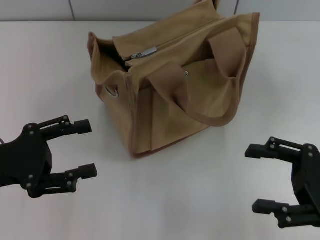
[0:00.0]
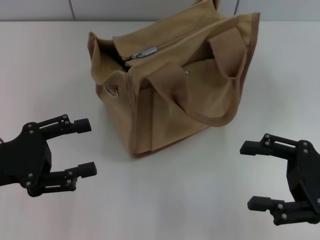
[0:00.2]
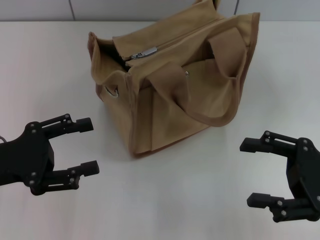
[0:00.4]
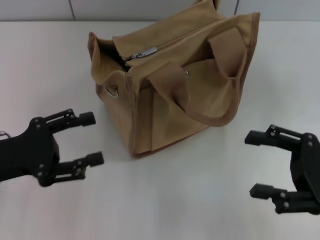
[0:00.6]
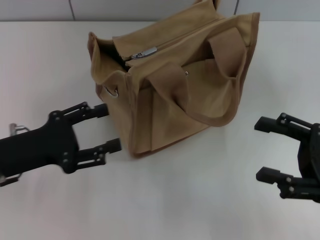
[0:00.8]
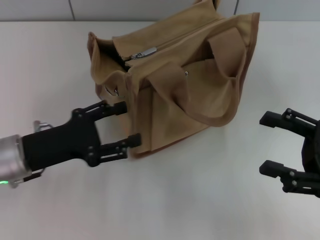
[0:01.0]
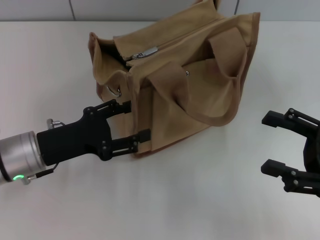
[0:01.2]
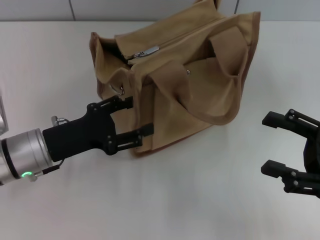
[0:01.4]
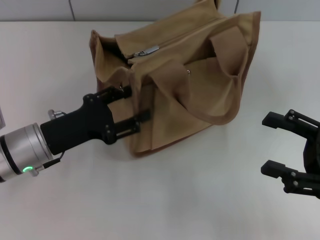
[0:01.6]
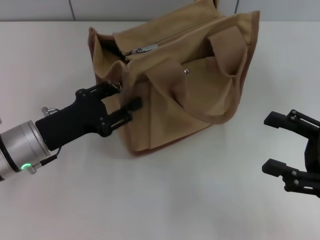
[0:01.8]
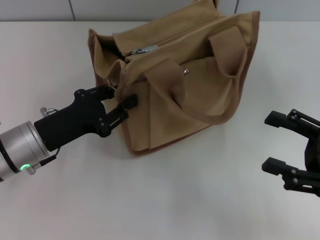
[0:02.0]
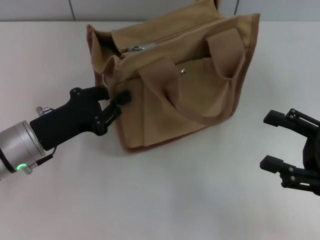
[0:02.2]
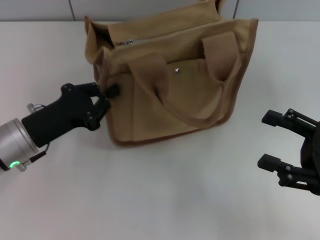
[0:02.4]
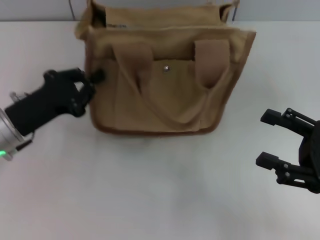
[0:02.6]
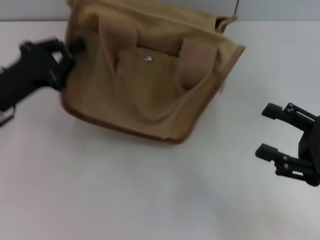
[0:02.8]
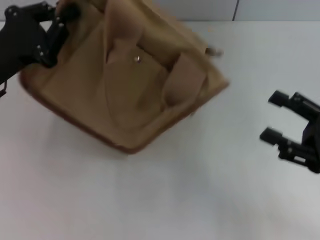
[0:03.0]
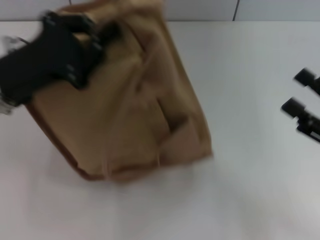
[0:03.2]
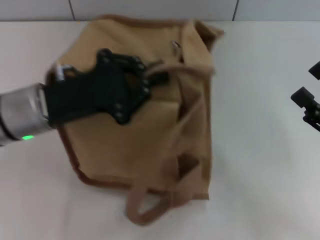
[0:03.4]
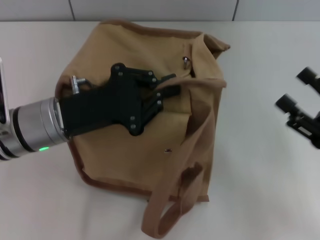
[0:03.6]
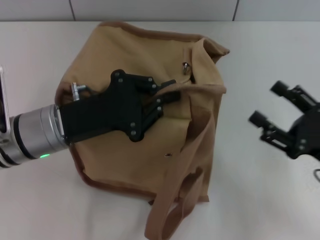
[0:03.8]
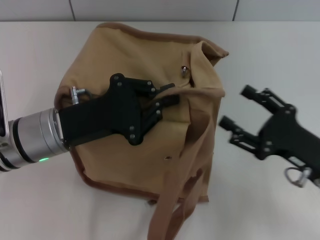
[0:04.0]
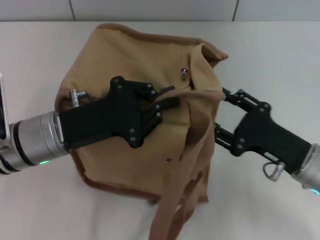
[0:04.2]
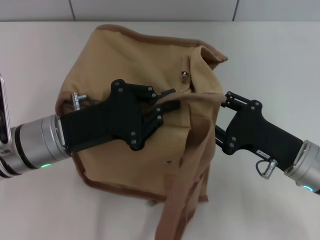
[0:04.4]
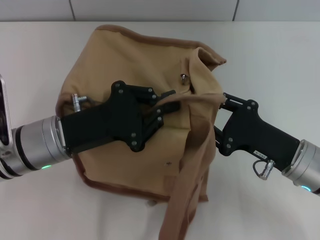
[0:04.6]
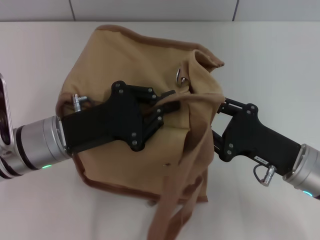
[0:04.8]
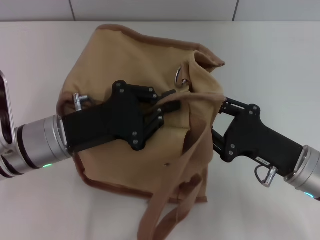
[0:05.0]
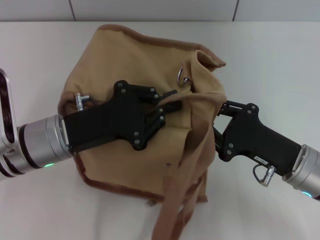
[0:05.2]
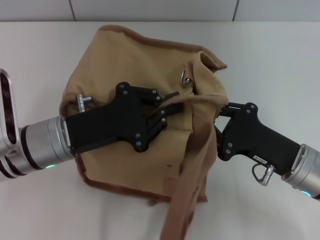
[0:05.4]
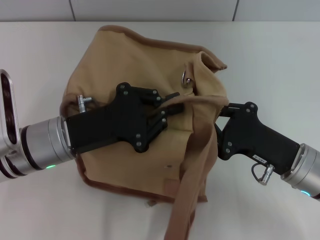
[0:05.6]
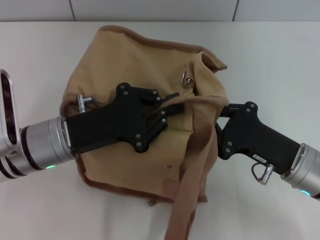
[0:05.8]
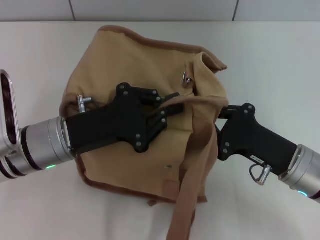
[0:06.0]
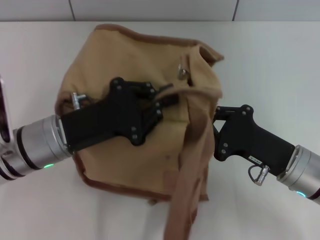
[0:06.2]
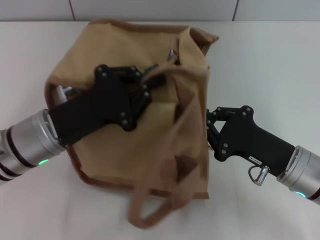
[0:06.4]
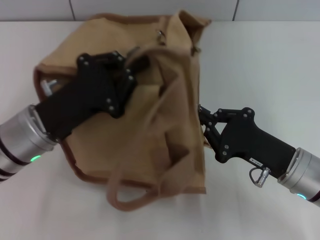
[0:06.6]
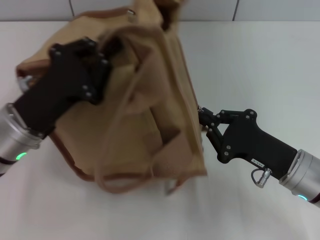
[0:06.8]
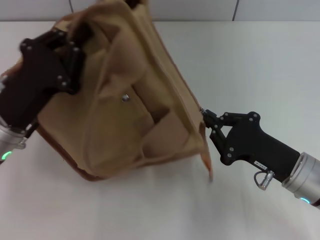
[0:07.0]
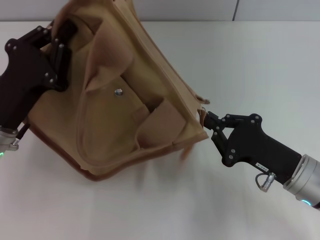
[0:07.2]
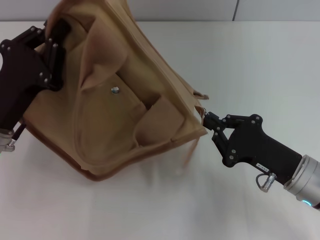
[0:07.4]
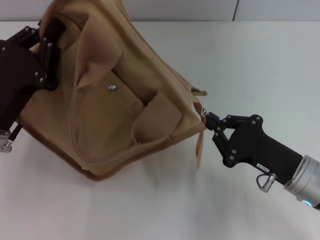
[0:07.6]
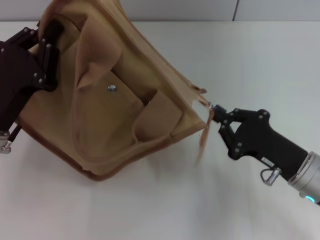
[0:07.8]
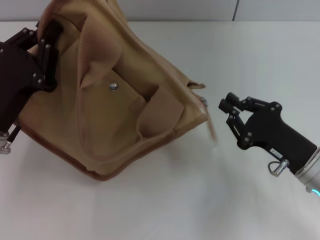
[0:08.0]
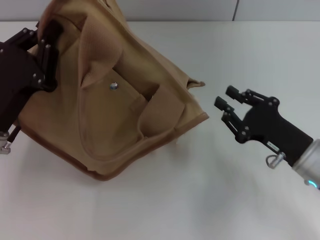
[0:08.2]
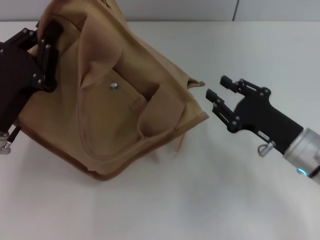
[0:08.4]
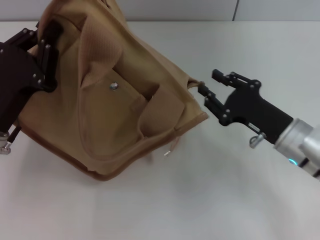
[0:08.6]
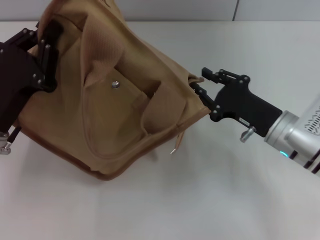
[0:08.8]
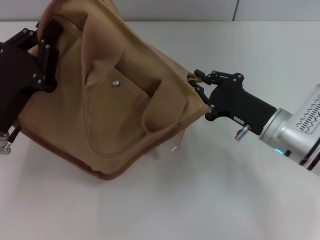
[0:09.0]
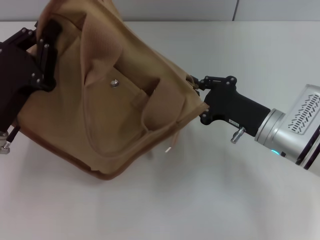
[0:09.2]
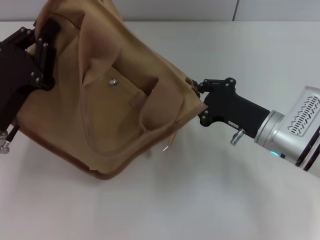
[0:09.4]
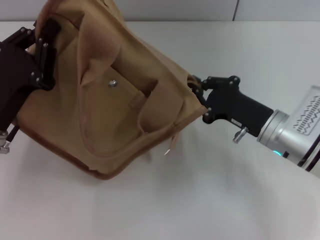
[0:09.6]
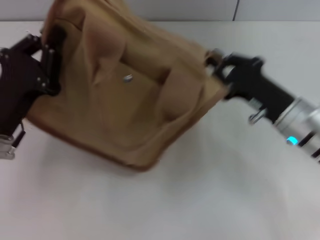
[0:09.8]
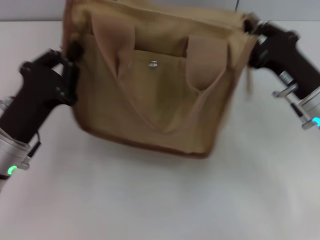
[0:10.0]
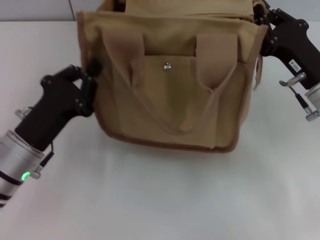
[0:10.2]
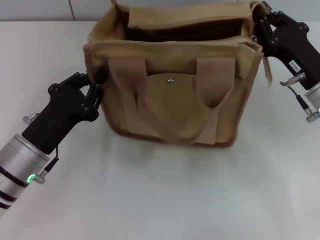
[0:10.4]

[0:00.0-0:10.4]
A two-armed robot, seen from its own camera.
Step, 0:00.0 to 0:08.0: Pull open the zipper with your right hand.
0:00.0 to 0:01.4: The left gripper heads to the right, covering some 5 cm.
0:01.4 to 0:03.0: The left gripper shifts roughly 10 cm upward, and closes its fingers.
0:03.0 to 0:04.4: The right gripper is displaced to the left by some 10 cm. The left gripper is displaced to the right by approximately 10 cm.
0:04.4 to 0:06.0: The right gripper closes up.
0:06.0 to 0:07.4: The left gripper is displaced to the left by approximately 5 cm.
0:07.4 to 0:09.0: The right gripper is displaced forward by roughly 5 cm, and opens its fingers.
0:09.0 to 0:10.4: The right gripper moves roughly 5 cm, and closes its fingers. The left gripper ends up some 5 cm from where it was.

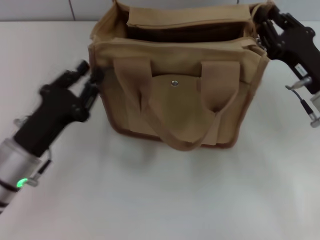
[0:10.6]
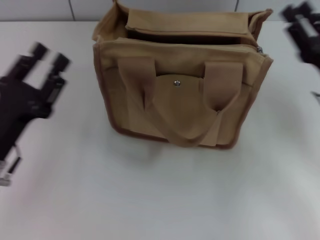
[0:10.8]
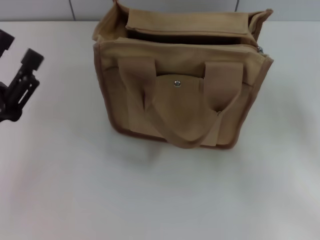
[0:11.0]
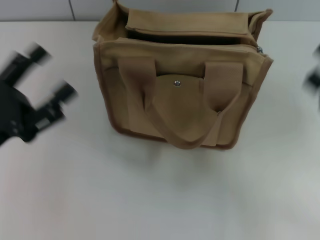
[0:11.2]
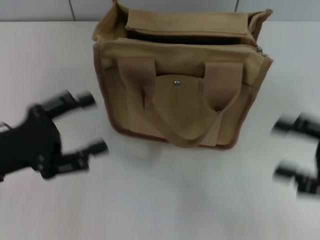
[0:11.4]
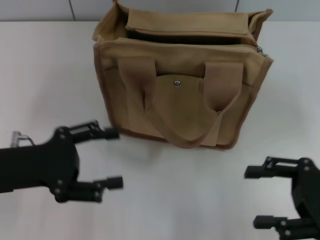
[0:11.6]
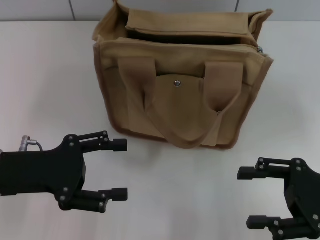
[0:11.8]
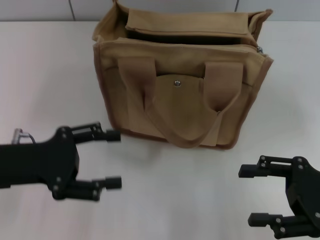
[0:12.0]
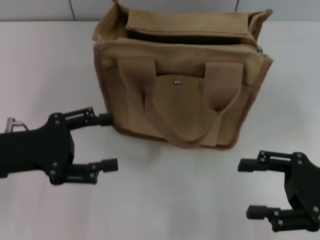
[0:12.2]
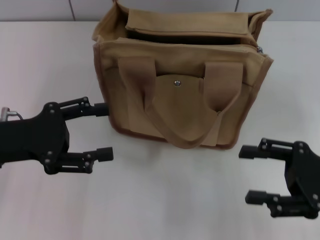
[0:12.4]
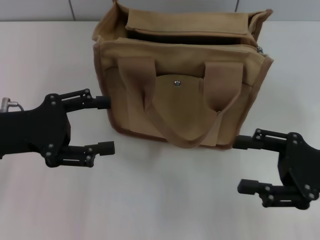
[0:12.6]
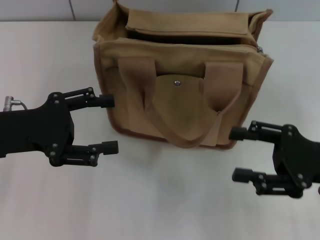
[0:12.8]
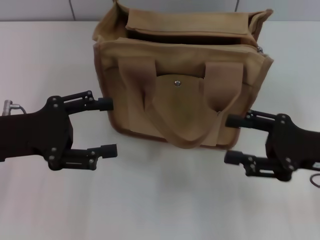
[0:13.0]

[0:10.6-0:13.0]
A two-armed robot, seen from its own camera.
0:10.6 to 0:11.8: The right gripper shifts some 10 cm backward, and opens, while the left gripper travels upward by approximately 5 cm, and opens up.
